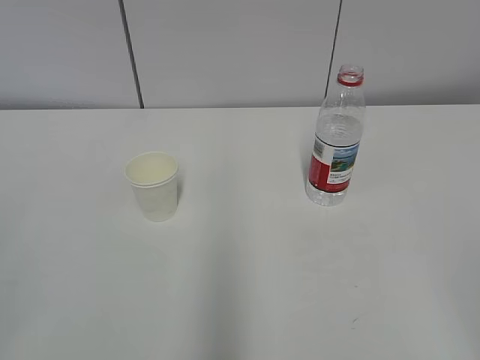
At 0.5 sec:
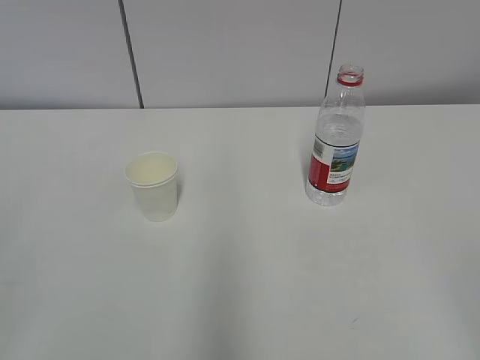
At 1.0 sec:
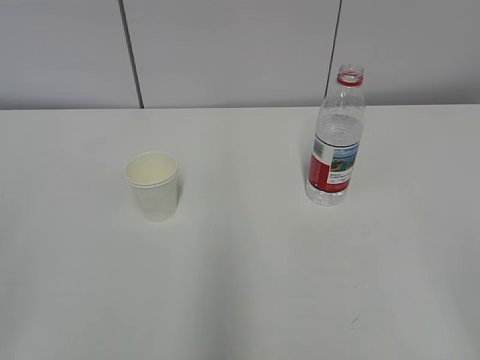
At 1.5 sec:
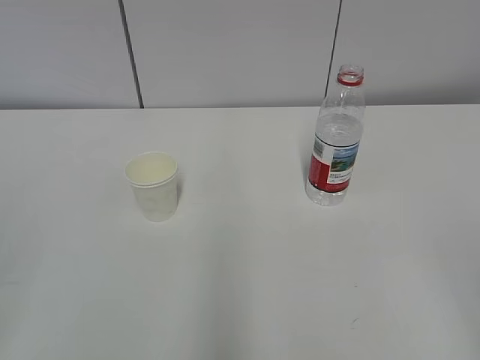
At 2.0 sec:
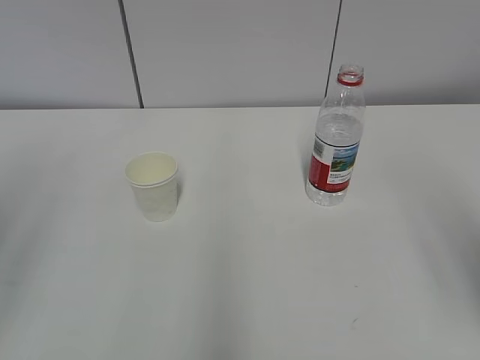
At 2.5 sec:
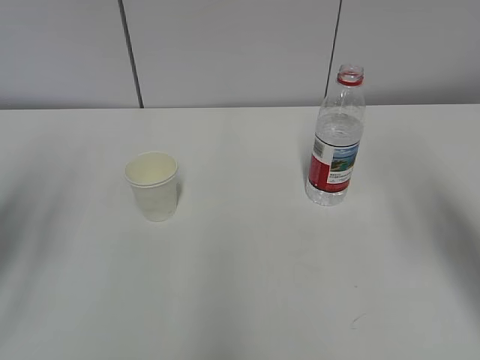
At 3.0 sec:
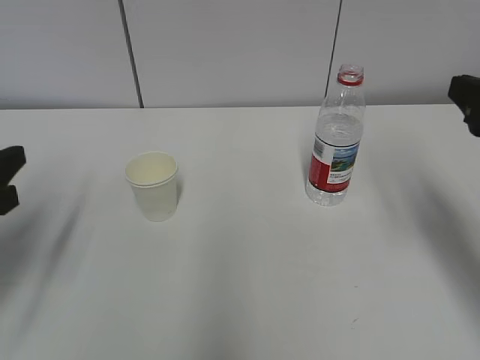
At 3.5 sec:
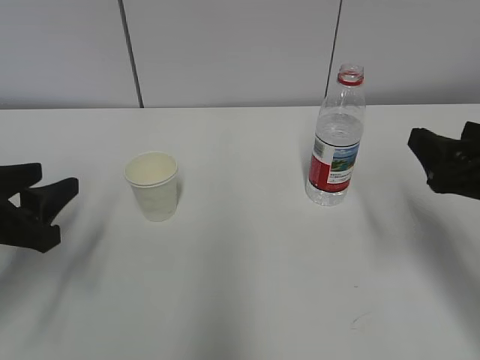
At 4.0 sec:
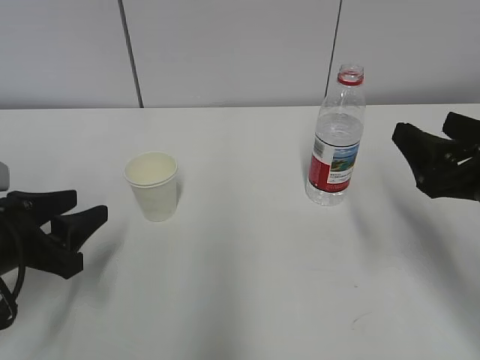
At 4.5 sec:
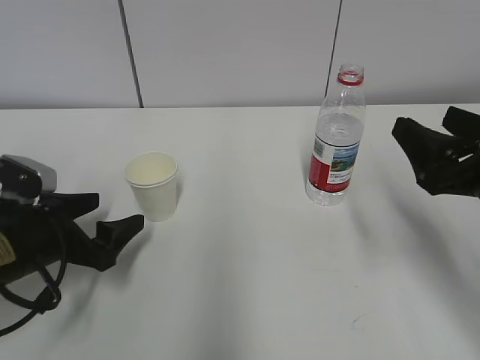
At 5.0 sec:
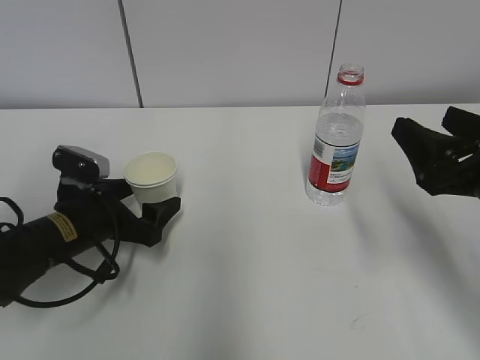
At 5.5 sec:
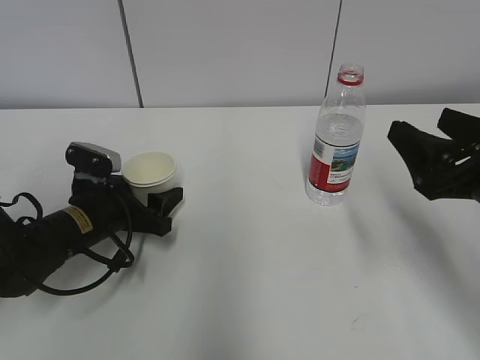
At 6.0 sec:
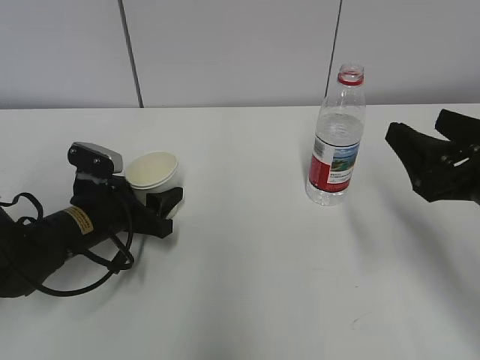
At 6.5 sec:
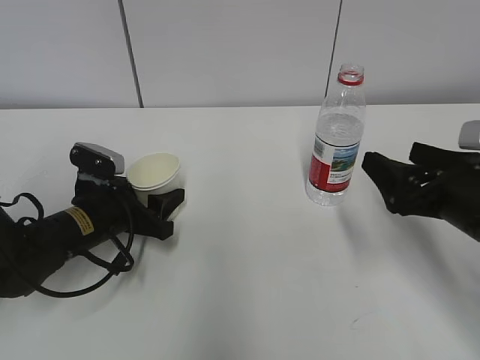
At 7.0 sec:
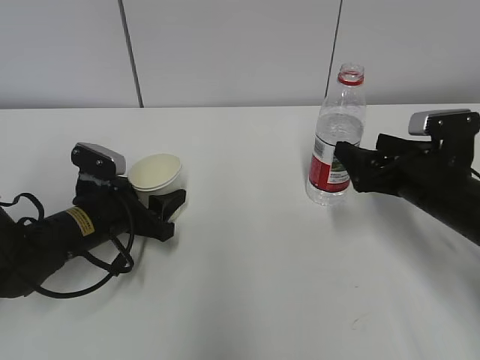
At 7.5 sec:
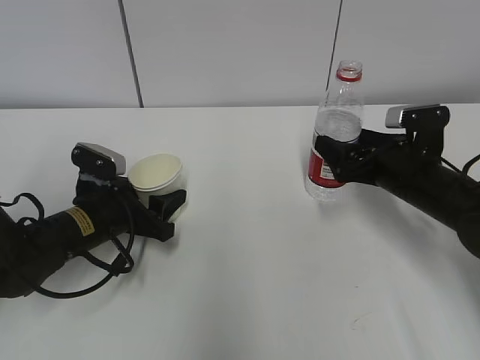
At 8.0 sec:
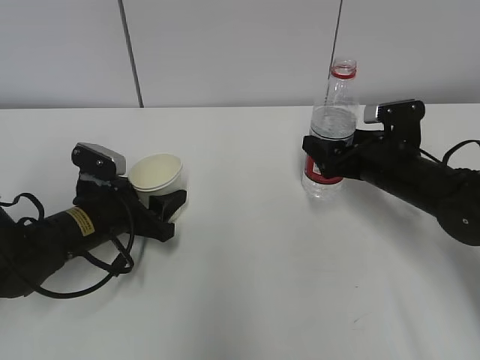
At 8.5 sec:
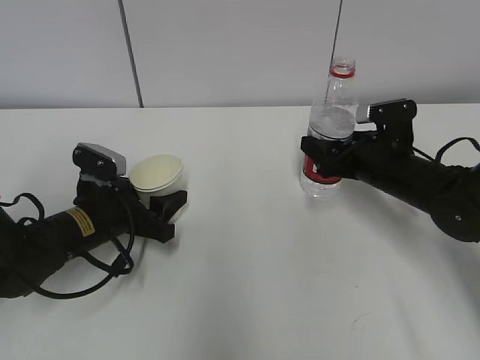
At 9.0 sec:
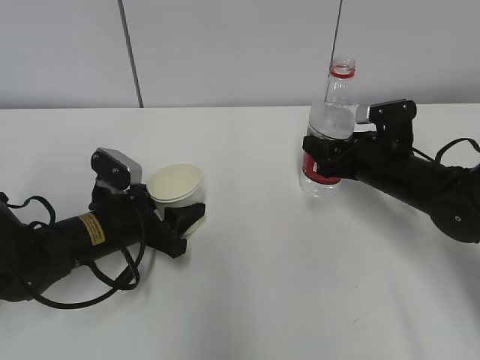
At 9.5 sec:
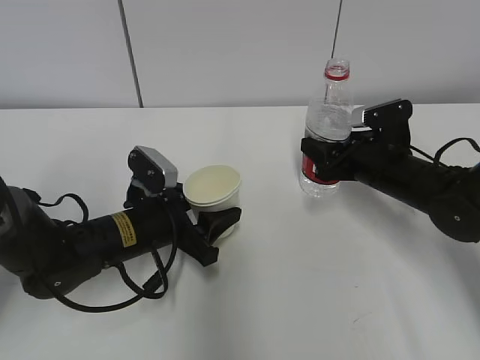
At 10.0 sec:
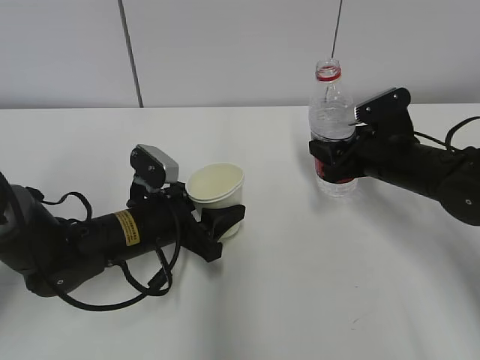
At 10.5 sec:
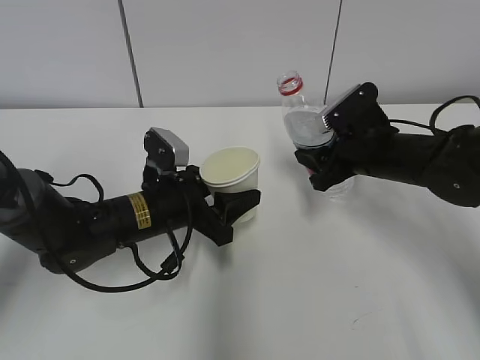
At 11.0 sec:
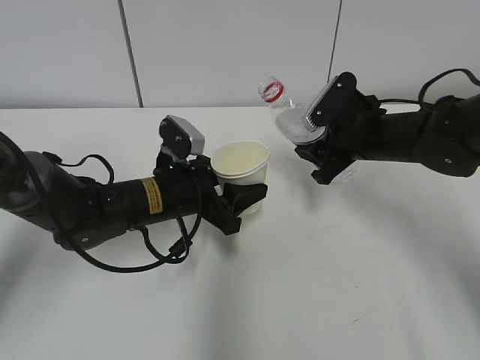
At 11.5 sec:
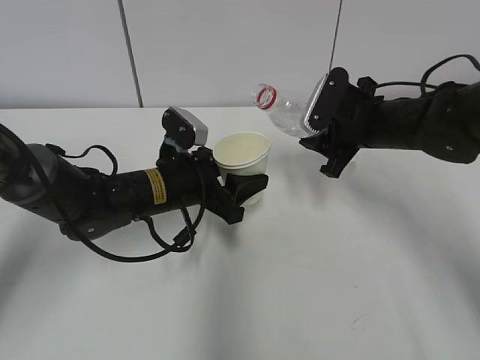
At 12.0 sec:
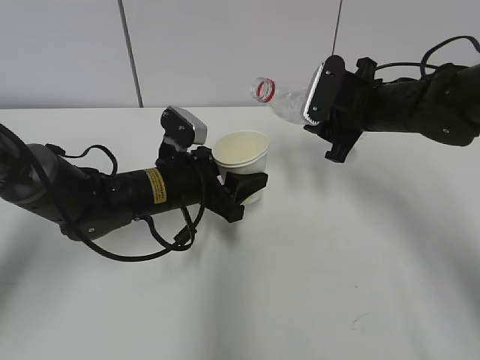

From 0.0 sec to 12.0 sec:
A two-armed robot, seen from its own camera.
Step, from 0.0 sec to 4.5 sec: Grab the paper cup with the left hand.
Step, from 5.0 sec to 7.0 sec: Grab the water bottle with the right hand.
Step, from 7.5 sec to 11.5 sec: Lift the paper cup with the left hand.
From 2.0 sec to 4.0 sec: The grippers both shift downward and forward by roughly 20 cm.
From 4.0 sec to 6.0 sec: The left gripper shifts some 15 cm forward, to the right and downward, and opens, then closes again.
From 6.0 sec to 8.0 sec: The right gripper travels forward and downward by some 15 cm.
From 8.0 sec to 10.0 sec: The left gripper heads to the right, covering about 5 cm. The right gripper closes.
From 10.0 sec to 12.0 sec: The right gripper goes about 5 cm upward, while the left gripper shifts by approximately 5 cm.

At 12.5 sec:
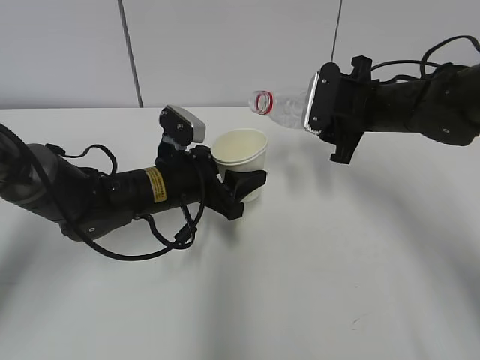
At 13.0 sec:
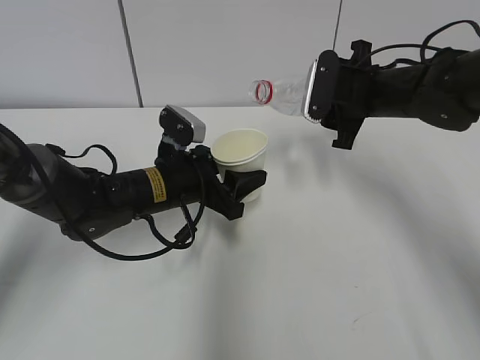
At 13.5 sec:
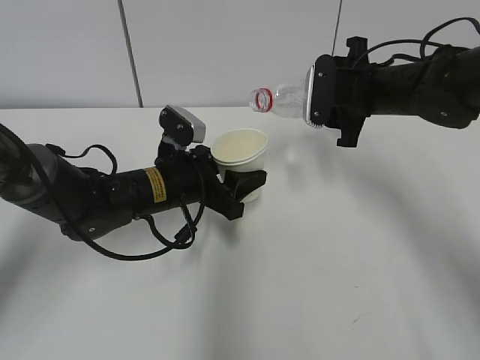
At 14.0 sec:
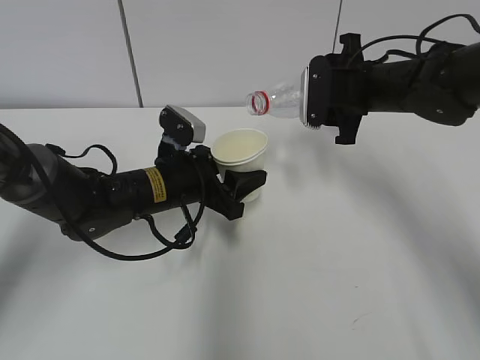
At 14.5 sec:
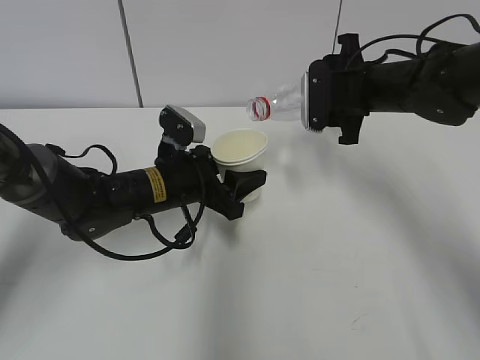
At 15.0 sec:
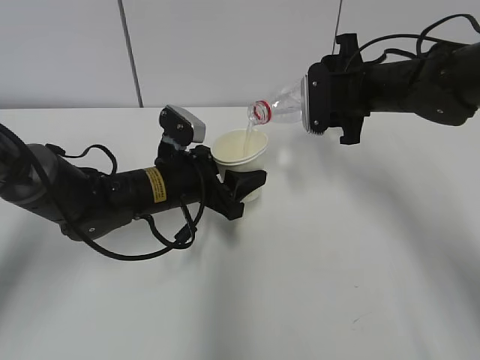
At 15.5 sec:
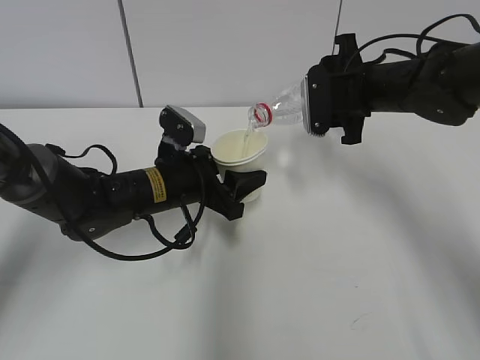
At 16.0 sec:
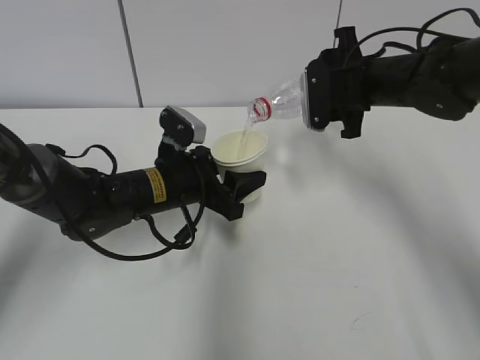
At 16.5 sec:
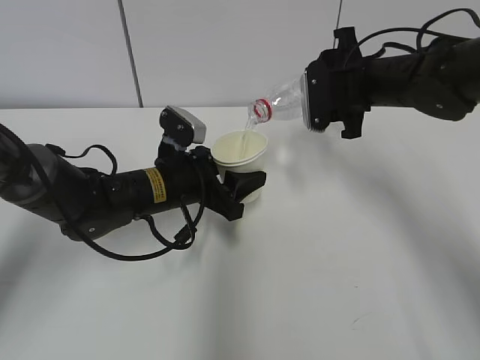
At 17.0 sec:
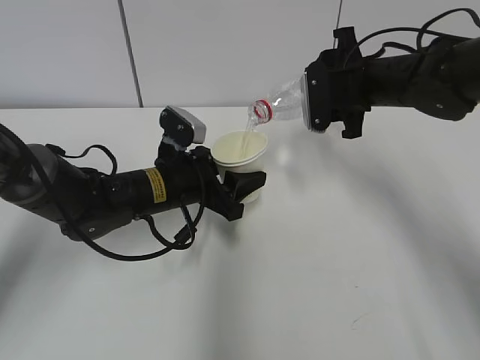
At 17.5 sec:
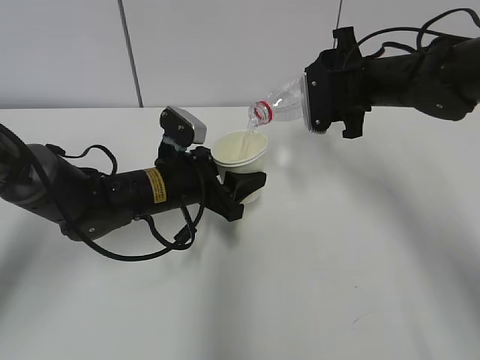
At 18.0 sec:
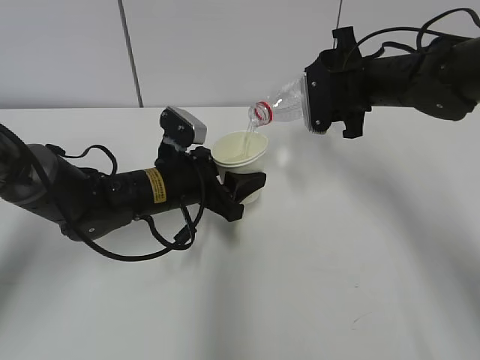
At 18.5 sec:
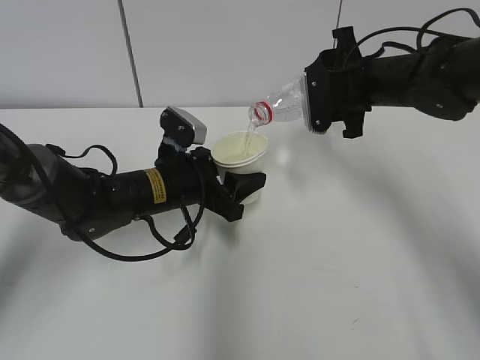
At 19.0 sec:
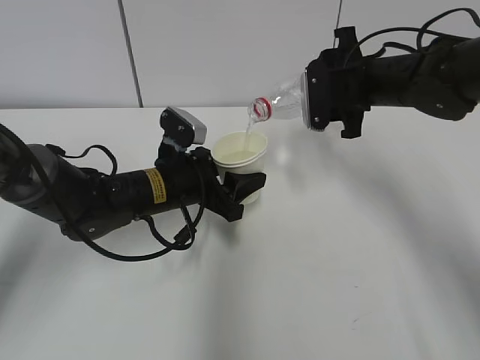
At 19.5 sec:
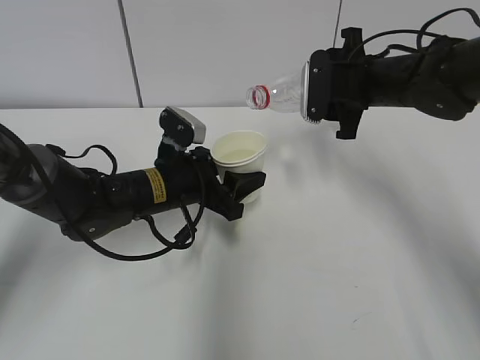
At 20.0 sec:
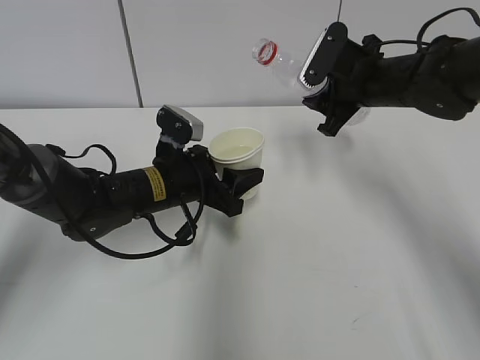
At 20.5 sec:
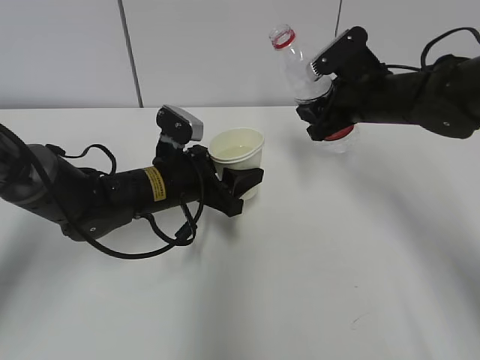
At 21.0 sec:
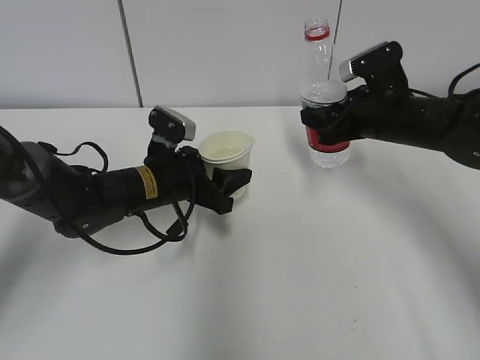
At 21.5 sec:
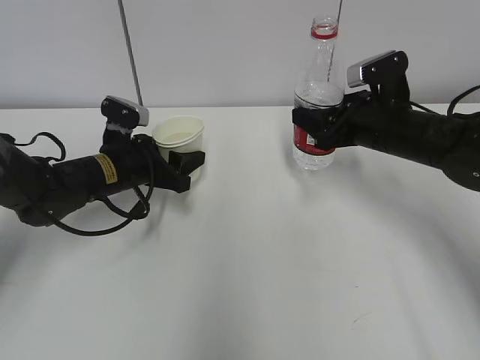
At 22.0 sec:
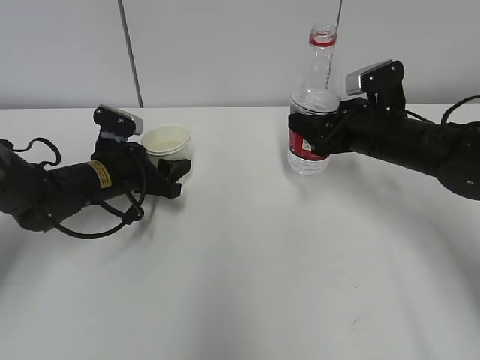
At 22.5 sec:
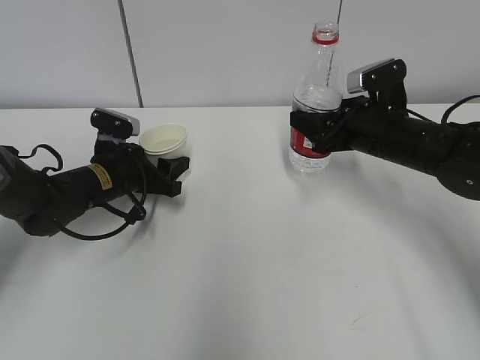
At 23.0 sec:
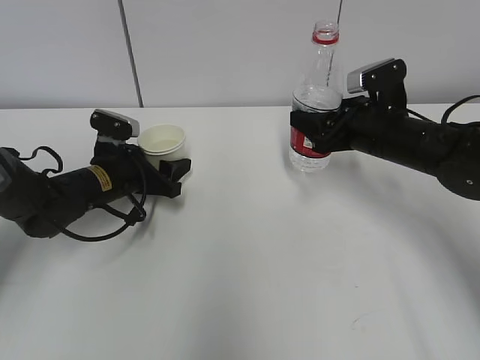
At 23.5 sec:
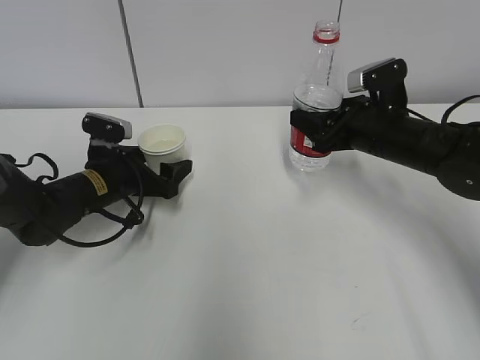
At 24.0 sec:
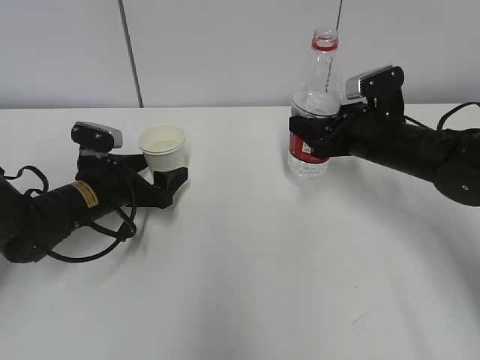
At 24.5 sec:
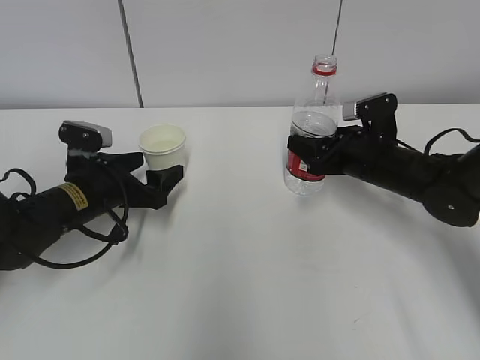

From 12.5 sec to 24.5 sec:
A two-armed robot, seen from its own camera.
Step, from 12.5 sec to 16.0 sec: Pour water with the right hand.
Step, from 19.0 sec to 21.0 sec: Place the water bottle with the right hand.
From 12.5 sec to 14.5 sec: There are only small adjustments of the grippers.
From 14.5 sec to 16.5 sec: The grippers stay close to where they were, moving slightly.
From 16.5 sec to 18.5 sec: Both grippers stay put.
From 20.5 sec to 22.5 sec: The left gripper goes roughly 10 cm to the left.
From 22.5 sec to 24.5 sec: The left gripper ends up roughly 5 cm from where it was, and opens its fingers.

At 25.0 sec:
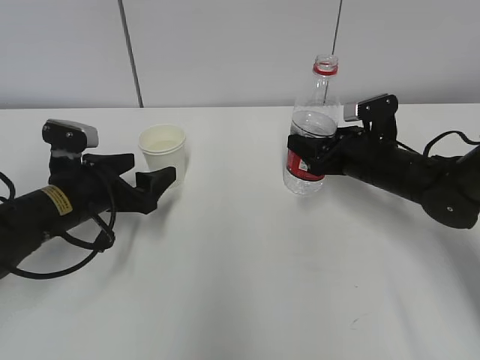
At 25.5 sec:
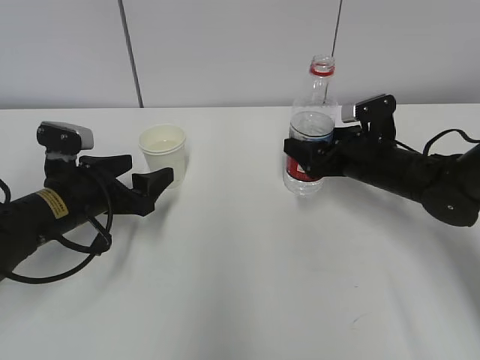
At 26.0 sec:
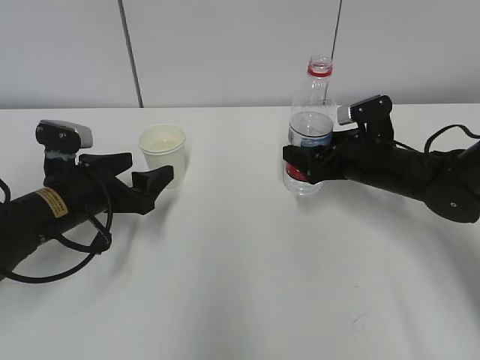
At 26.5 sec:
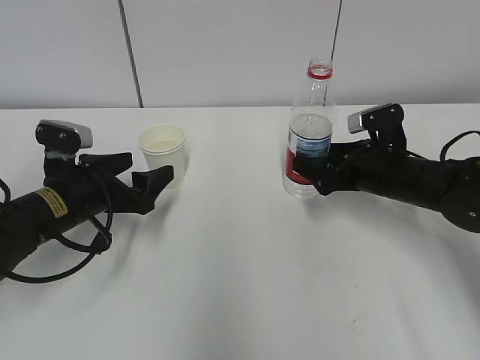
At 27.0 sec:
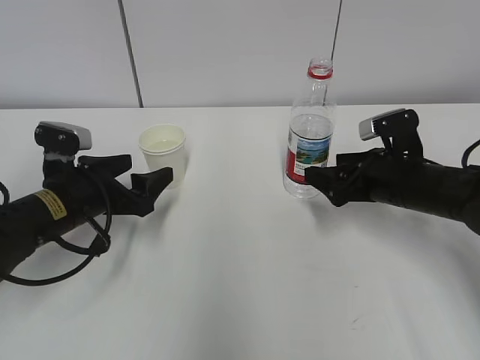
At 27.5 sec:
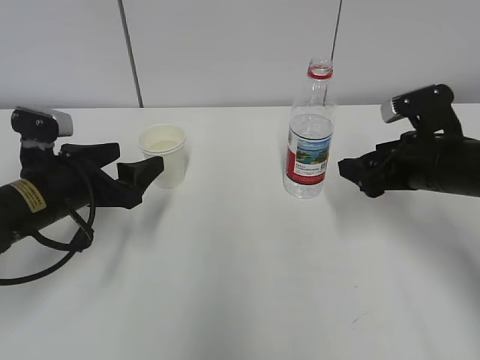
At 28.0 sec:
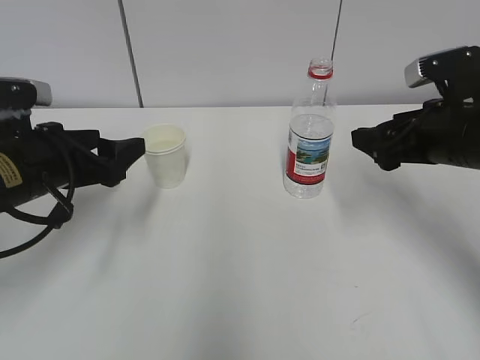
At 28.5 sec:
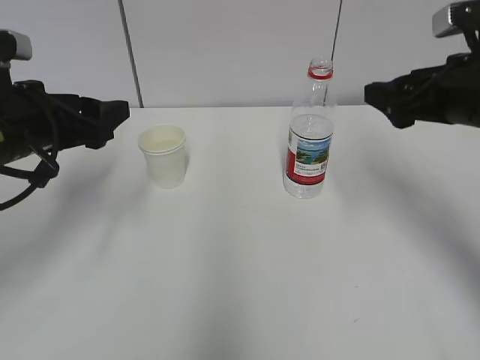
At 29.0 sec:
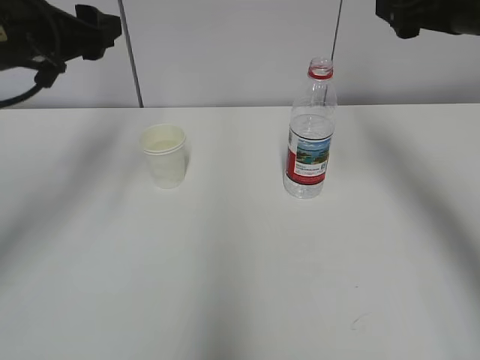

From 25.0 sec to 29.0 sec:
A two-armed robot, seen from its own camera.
From 25.0 sec to 27.0 sec: The right gripper moves about 5 cm, and opens.
From 27.0 sec to 29.0 sec: Both grippers move upward, about 20 cm.
